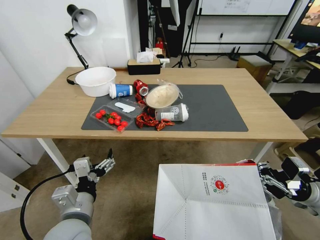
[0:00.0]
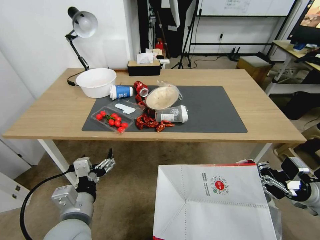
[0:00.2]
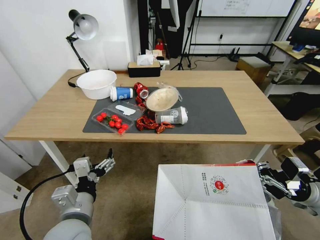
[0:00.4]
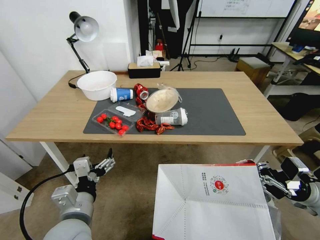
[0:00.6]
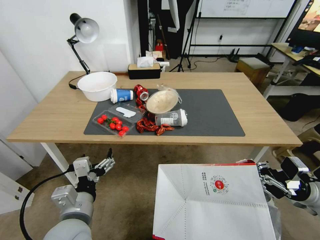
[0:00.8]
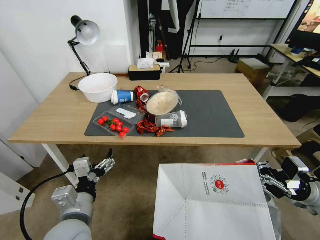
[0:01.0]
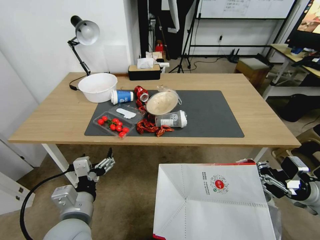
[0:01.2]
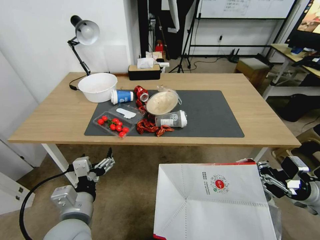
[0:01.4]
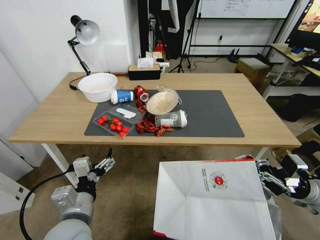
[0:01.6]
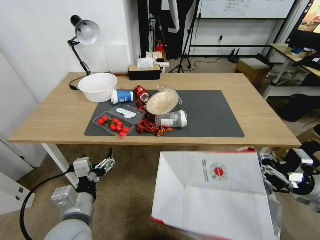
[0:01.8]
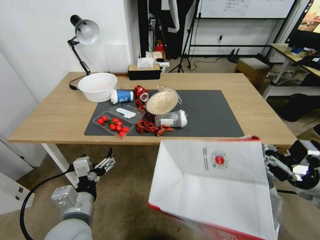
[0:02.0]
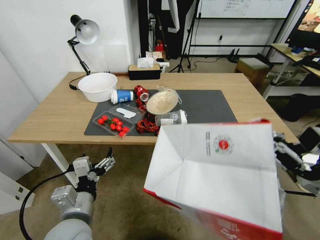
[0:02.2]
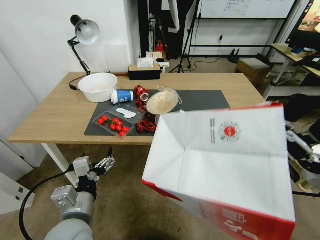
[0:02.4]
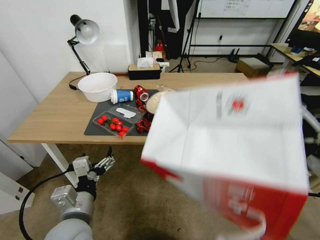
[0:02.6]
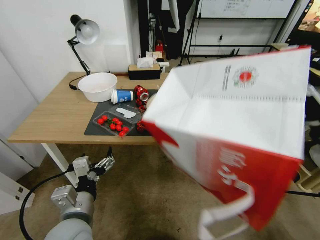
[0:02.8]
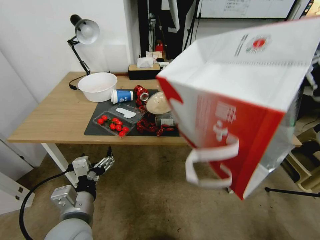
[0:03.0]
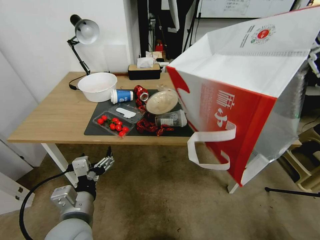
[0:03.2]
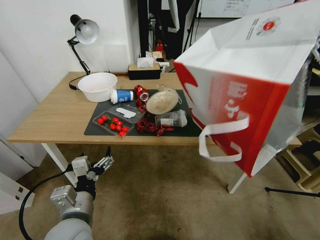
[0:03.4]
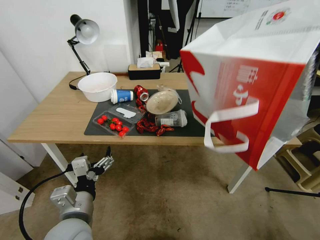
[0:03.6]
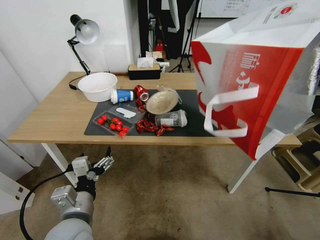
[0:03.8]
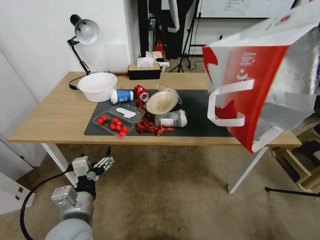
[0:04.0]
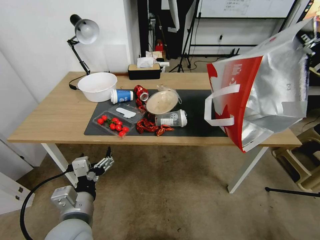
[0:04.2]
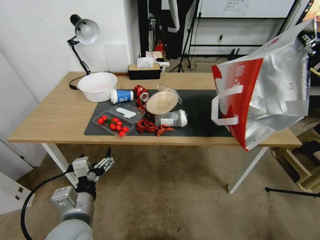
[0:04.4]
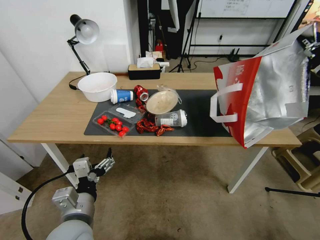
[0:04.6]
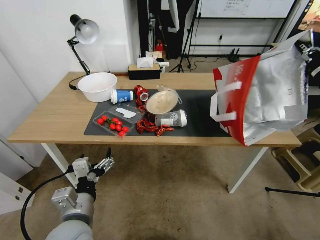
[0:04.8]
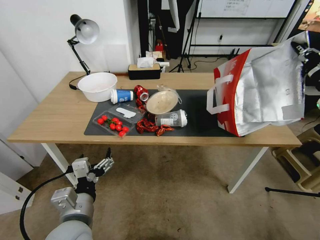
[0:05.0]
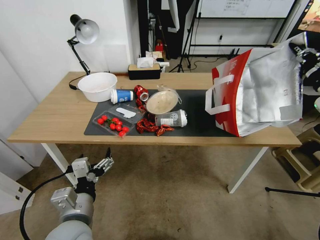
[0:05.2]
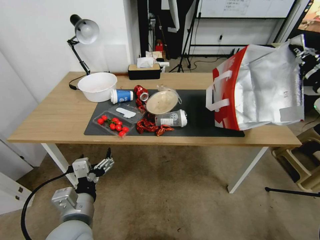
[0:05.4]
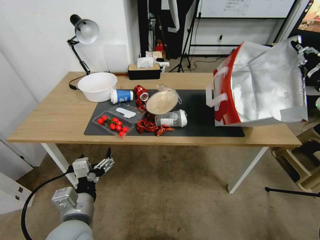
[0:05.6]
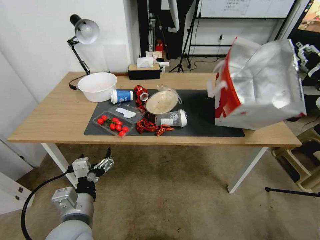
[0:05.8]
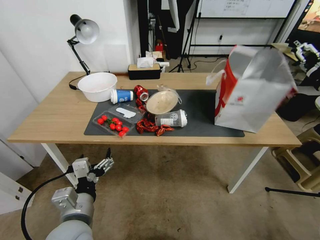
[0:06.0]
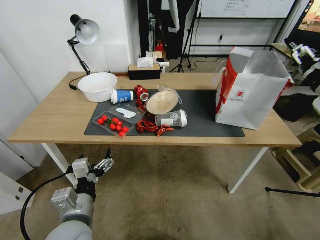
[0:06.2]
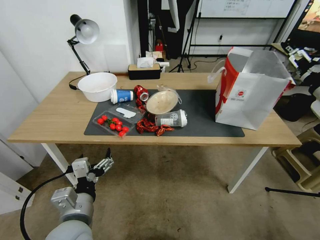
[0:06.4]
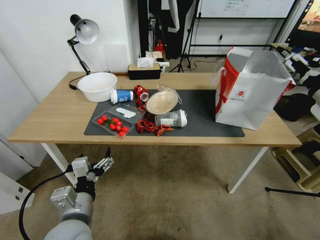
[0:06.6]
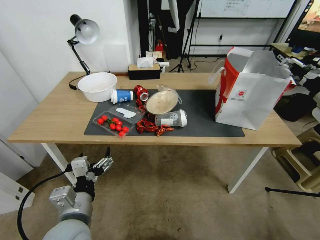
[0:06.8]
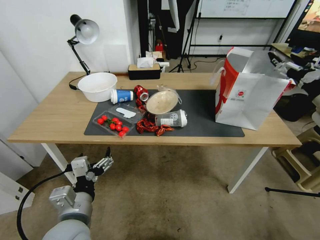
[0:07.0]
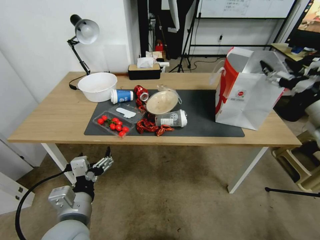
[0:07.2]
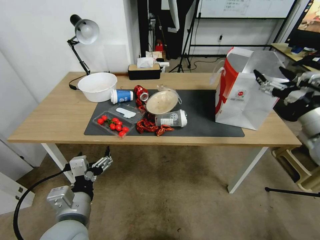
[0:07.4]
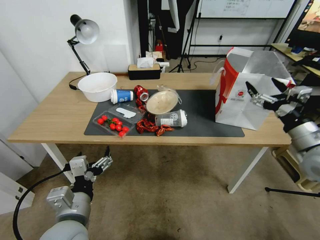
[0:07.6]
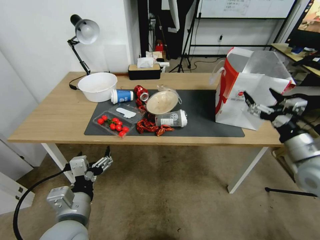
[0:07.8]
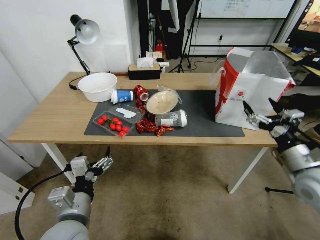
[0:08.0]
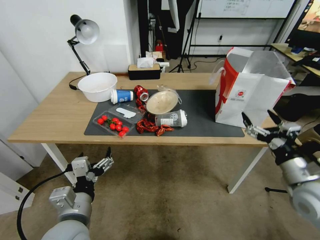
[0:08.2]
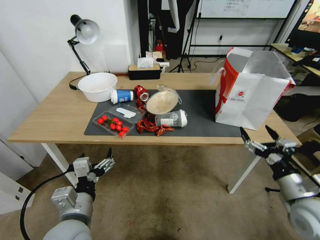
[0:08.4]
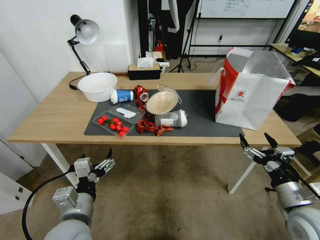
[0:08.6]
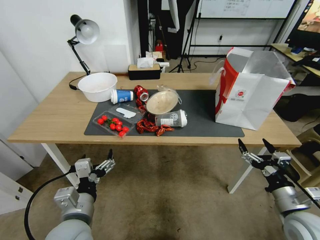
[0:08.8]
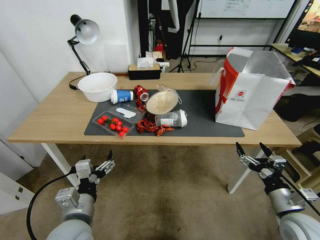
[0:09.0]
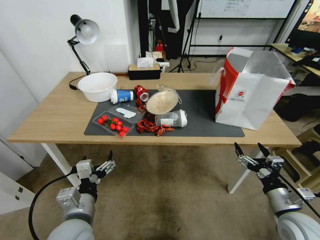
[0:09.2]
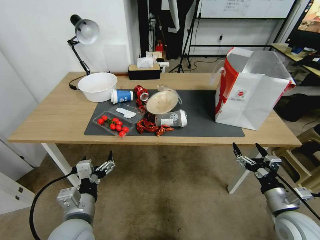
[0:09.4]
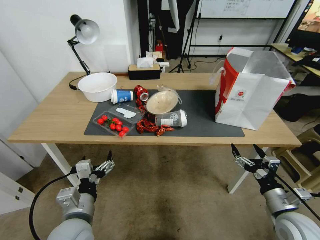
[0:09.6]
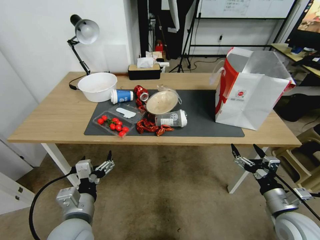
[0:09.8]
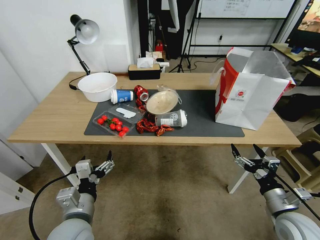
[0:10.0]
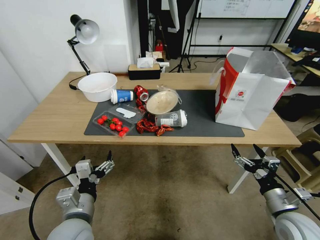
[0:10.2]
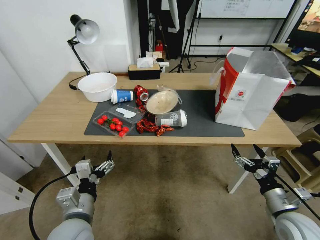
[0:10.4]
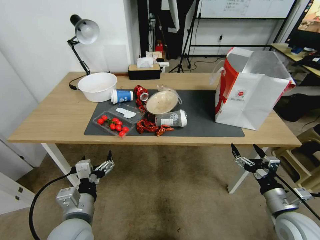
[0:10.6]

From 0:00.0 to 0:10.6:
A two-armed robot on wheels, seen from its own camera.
Task of the whole recording: Pick up the food delivery bag from the floor and place it on the table.
From 0:01.6 to 0:03.0: The right gripper moves upward, roughly 15 cm.
From 0:03.0 to 0:04.6: The right gripper goes approximately 15 cm forward, upward and to the right.
From 0:04.6 to 0:06.0: The right gripper opens up.
From 0:06.0 to 0:07.6: The right gripper is displaced backward, to the left and downward by about 15 cm.
From 0:07.6 to 0:09.0: The right gripper goes about 20 cm downward and backward.
From 0:09.0 to 0:10.6: The grippers move only a little.
